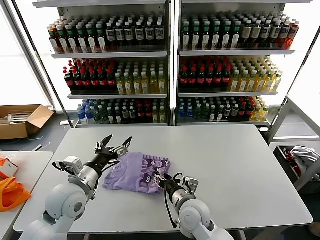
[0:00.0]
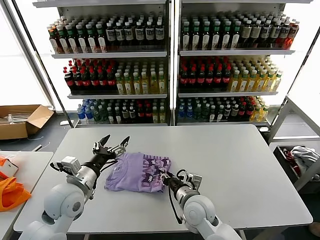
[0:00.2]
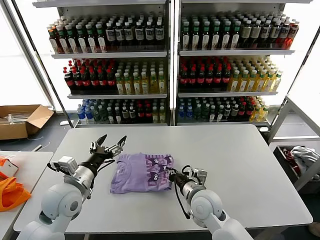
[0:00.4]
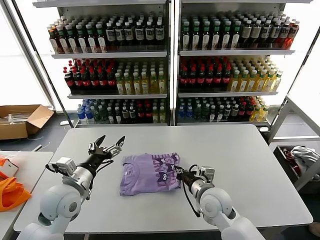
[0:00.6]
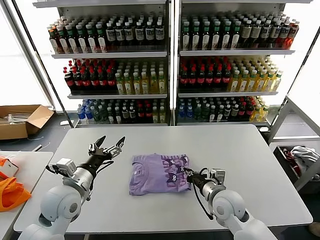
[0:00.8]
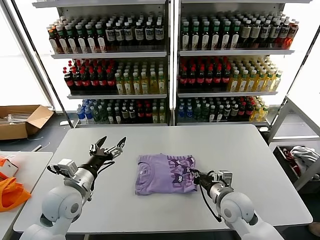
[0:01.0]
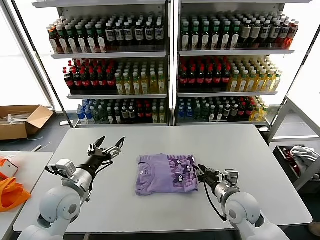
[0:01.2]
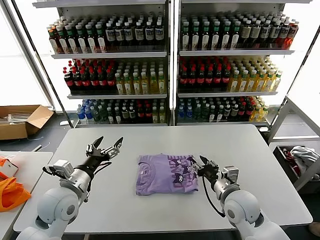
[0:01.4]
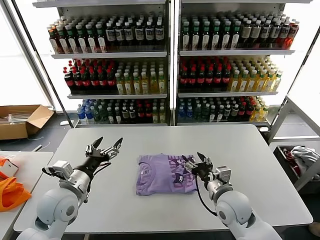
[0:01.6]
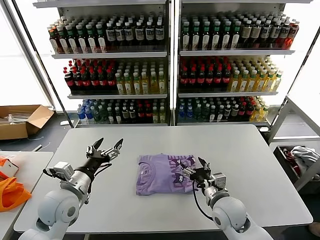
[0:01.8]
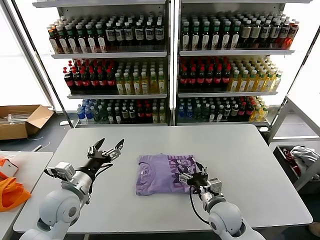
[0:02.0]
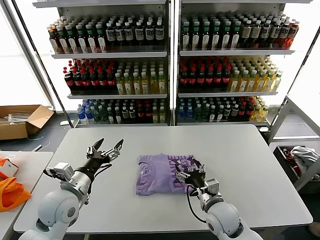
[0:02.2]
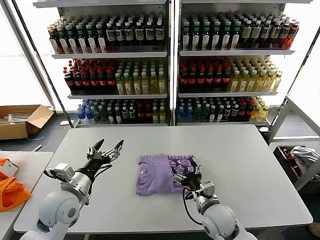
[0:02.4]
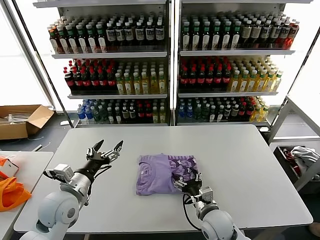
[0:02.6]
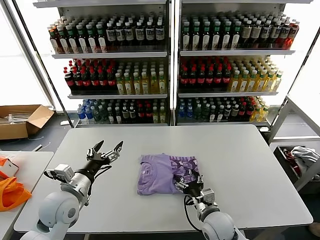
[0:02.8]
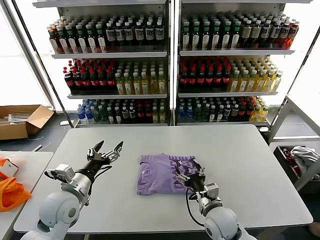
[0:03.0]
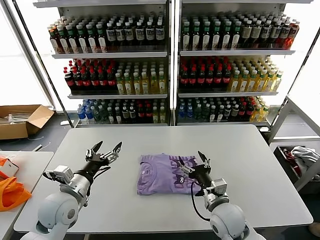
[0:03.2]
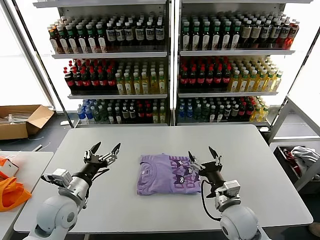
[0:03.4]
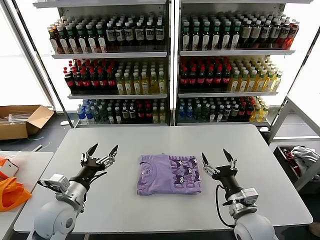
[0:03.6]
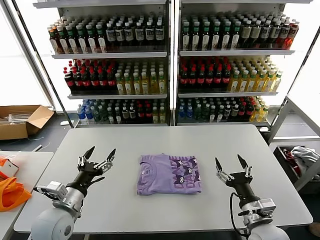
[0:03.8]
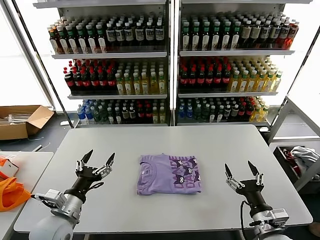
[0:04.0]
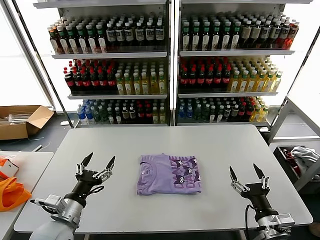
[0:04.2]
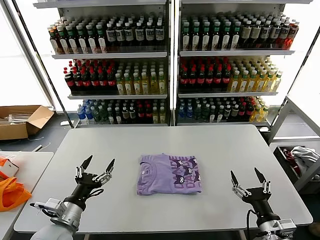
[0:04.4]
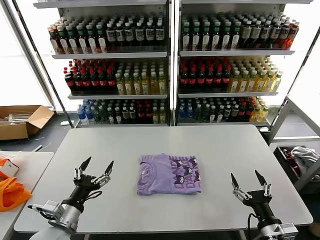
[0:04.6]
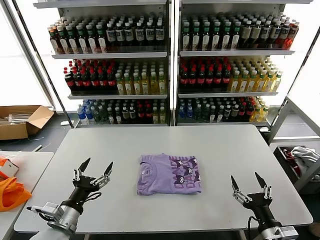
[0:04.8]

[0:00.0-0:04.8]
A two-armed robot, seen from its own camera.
Task of the whole recording: fold and organize the clothes.
Step, 0:00.0 to 0:01.2: Drag the clothes to the center of the table.
0:00.0 to 0:01.6: The right gripper goes about 10 cm to the right, and closes, then reopens.
0:03.2 to 0:04.8: The right gripper heads to the right and backward, covering some 20 cm, while the left gripper heads backward, covering some 10 cm.
